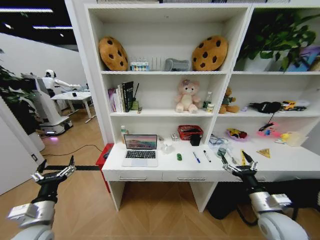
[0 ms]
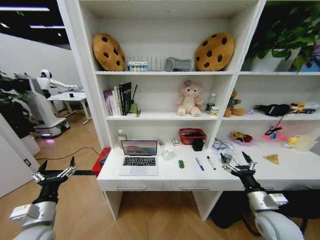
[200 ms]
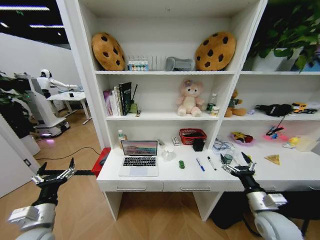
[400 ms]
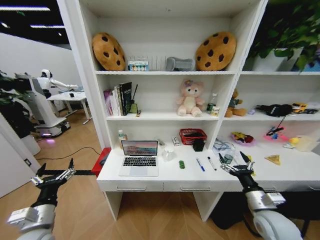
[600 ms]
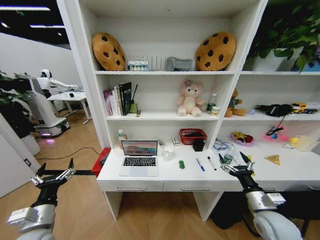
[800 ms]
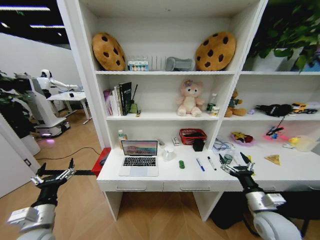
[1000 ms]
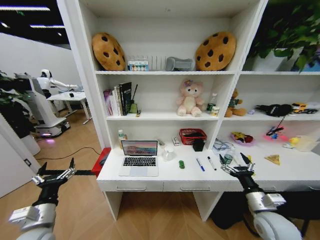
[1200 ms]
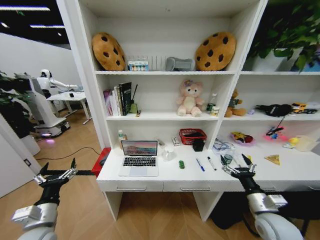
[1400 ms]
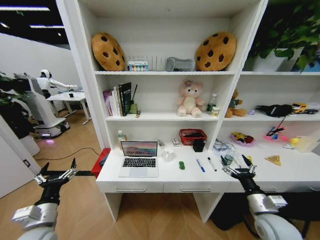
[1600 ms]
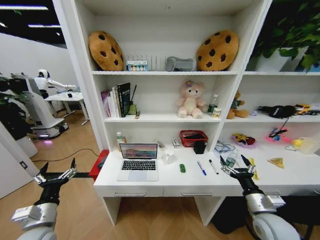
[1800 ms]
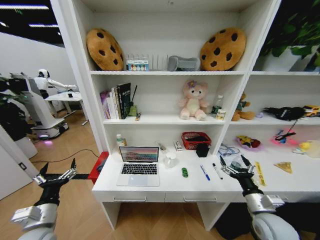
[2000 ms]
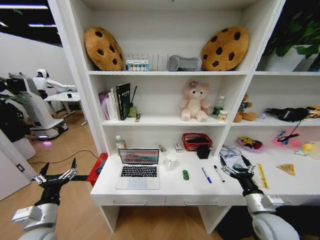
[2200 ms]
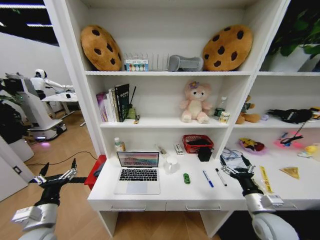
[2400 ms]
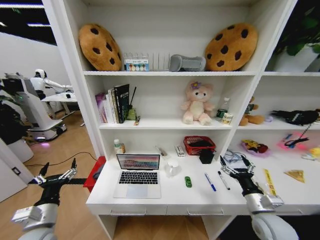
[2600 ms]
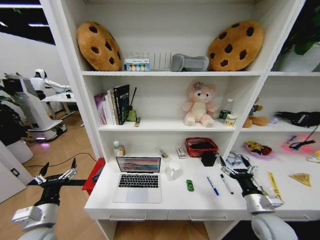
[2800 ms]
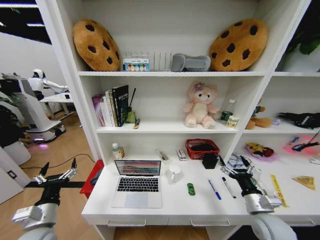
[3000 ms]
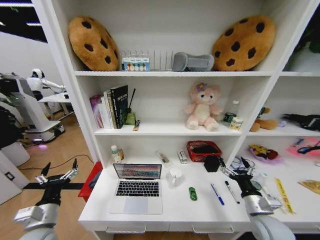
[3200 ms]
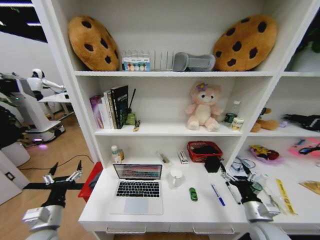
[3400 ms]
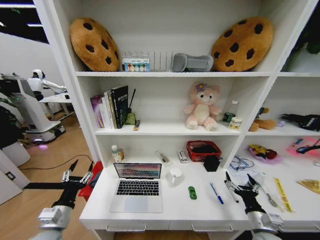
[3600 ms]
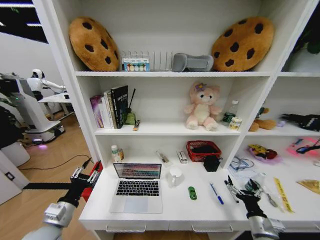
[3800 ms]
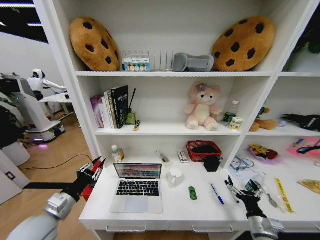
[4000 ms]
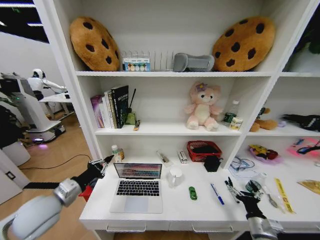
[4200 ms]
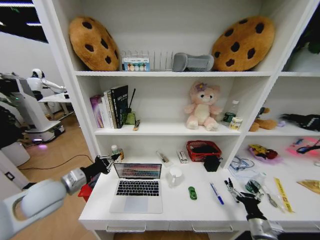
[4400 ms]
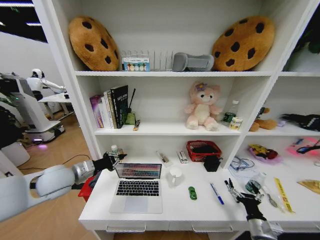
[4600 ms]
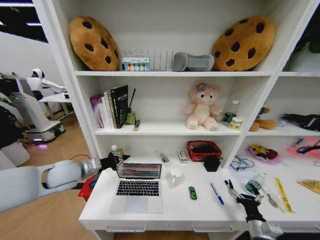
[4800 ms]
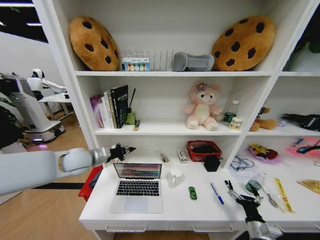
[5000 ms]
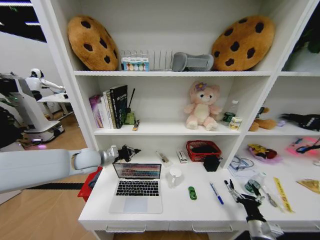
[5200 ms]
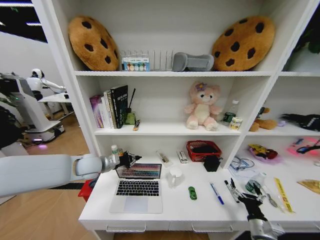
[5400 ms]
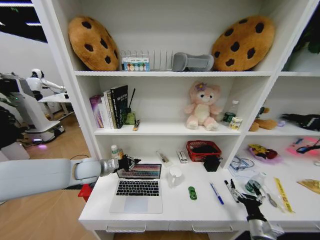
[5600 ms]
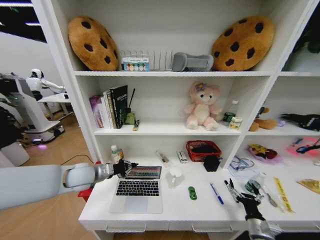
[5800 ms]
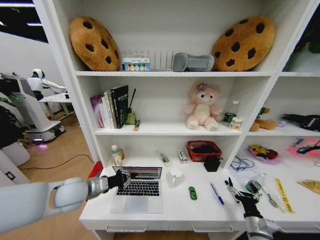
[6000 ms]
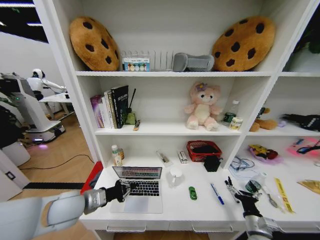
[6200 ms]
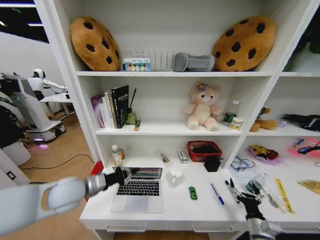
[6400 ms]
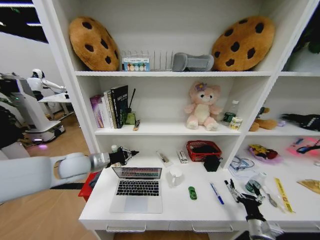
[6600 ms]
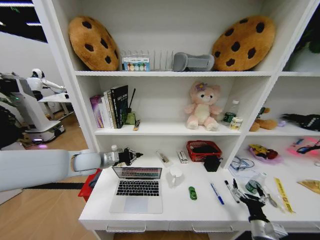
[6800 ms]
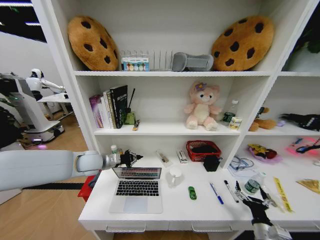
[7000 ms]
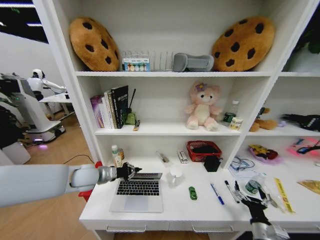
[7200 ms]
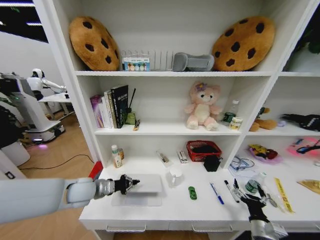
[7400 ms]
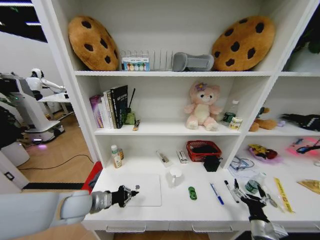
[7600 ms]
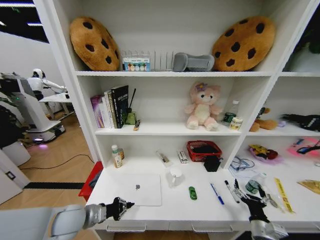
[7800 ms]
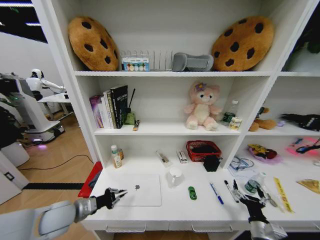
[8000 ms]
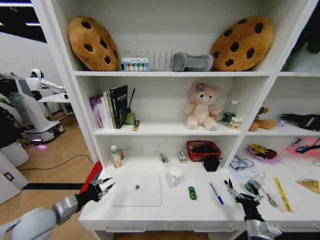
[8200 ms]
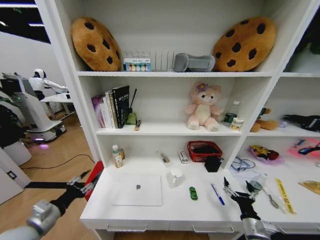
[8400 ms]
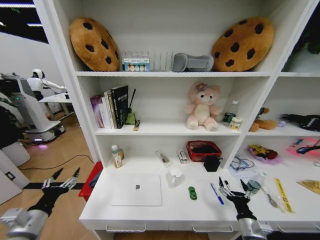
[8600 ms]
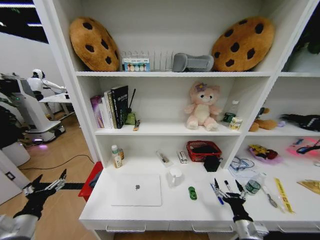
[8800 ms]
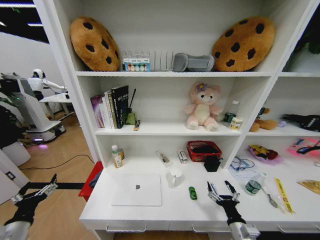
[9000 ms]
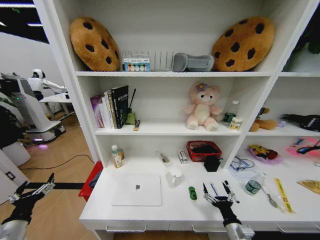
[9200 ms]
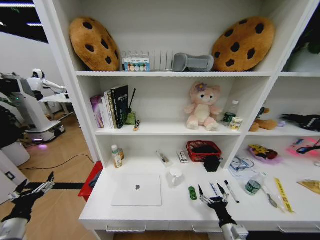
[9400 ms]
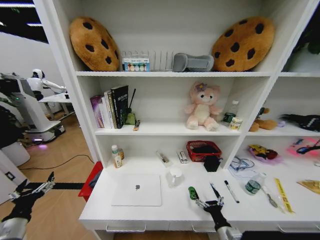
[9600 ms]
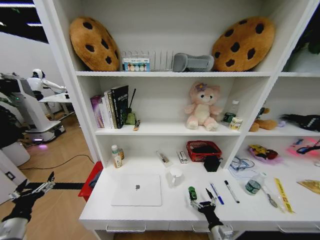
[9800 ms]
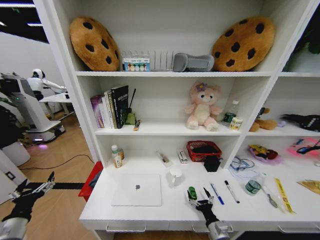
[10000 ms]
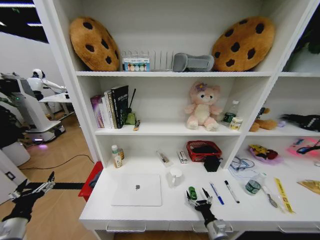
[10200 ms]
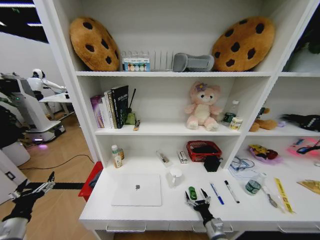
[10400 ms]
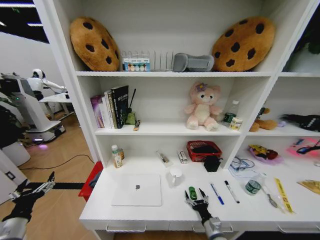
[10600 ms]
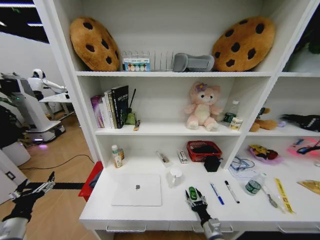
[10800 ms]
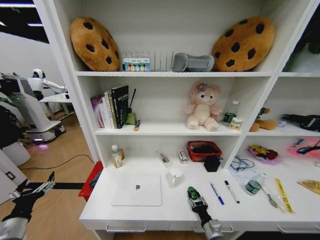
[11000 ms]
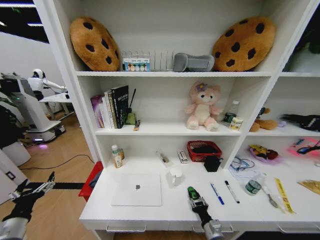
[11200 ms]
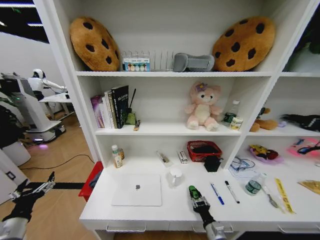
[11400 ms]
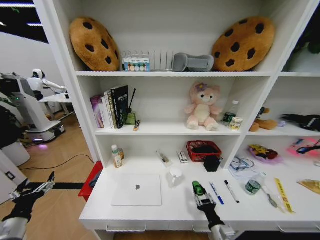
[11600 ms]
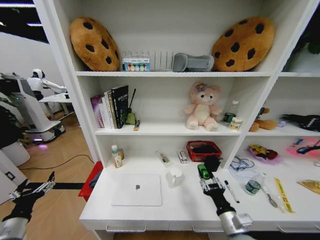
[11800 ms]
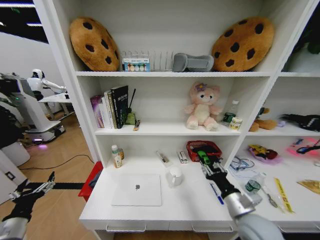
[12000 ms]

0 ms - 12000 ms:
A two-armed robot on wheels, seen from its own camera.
Task of the whole recording: Organize the objects on the table.
3000 ms - 4400 ms: The right gripper shifts roughly 10 cm downward and backward, while the left gripper goes approximately 15 cm forward and upward, and closes up.
4400 ms - 6000 ms: The left gripper goes forward and returns, about 15 cm each way.
6000 ms - 7600 ms: The left gripper moves forward and backward over some 15 cm, changing direction 2 times.
7600 ms - 9000 ms: The left gripper travels to the left and backward by roughly 20 cm, and opens up. The right gripper is displaced to the left by about 5 cm.
9000 ms - 10400 ms: The right gripper travels downward by about 10 cm.
10400 ms - 12000 ms: The right gripper moves upward, approximately 20 cm, and closes.

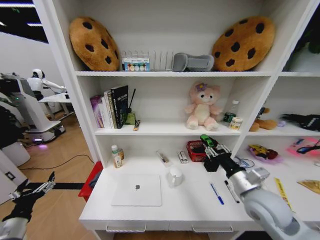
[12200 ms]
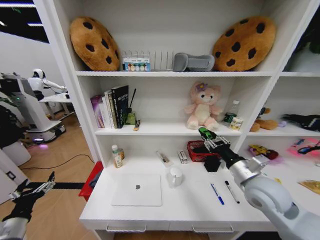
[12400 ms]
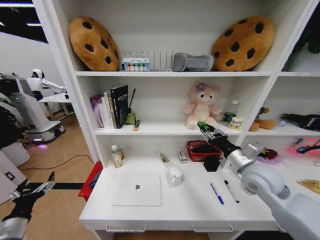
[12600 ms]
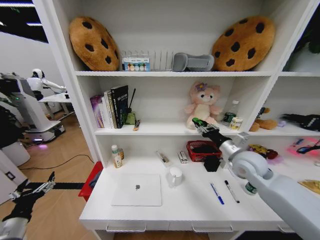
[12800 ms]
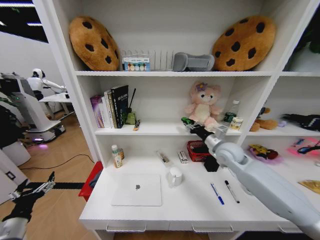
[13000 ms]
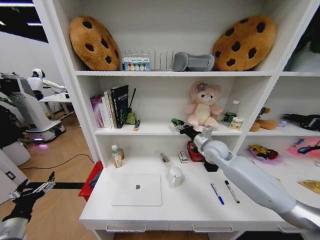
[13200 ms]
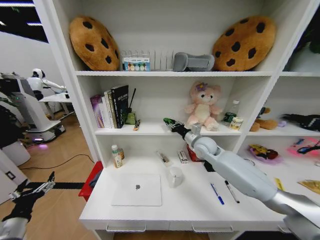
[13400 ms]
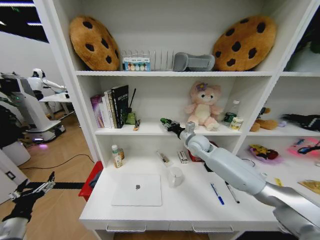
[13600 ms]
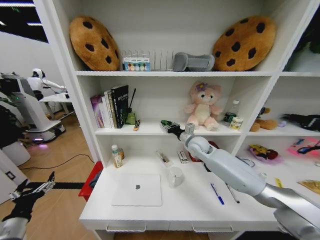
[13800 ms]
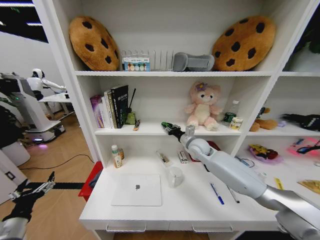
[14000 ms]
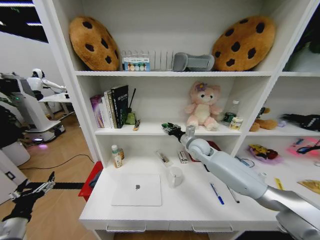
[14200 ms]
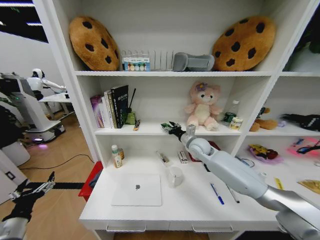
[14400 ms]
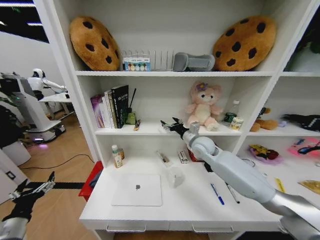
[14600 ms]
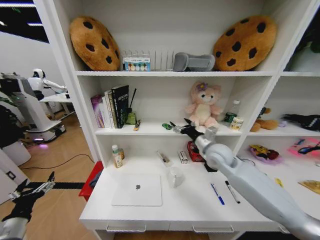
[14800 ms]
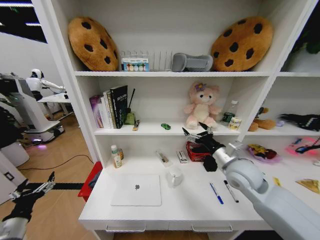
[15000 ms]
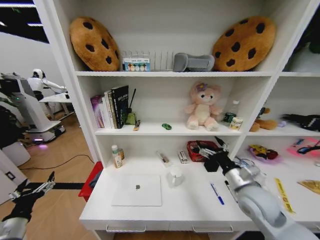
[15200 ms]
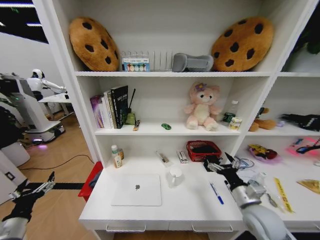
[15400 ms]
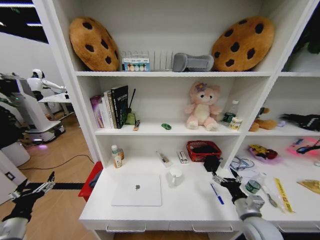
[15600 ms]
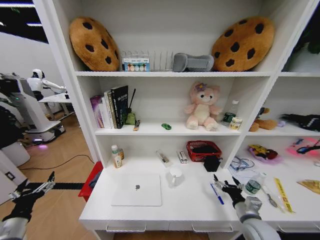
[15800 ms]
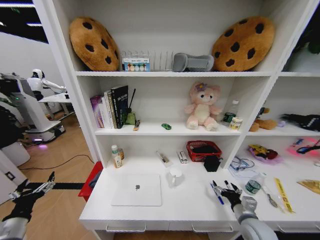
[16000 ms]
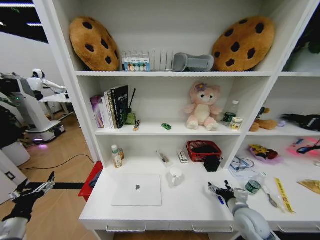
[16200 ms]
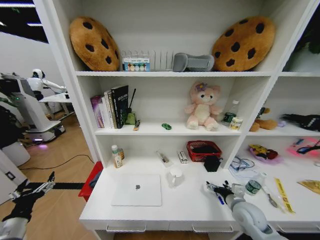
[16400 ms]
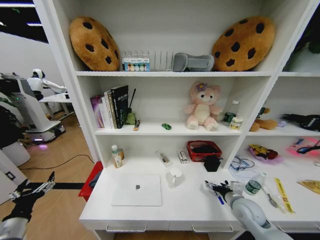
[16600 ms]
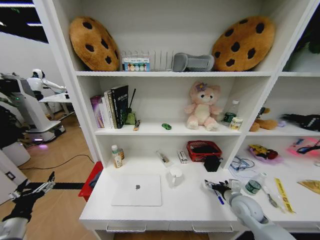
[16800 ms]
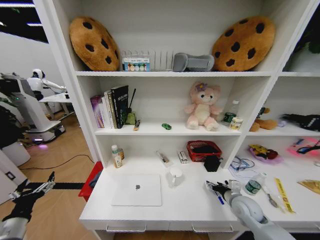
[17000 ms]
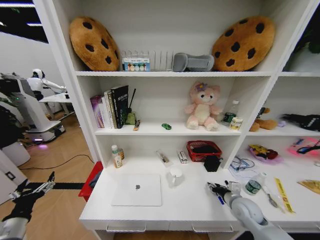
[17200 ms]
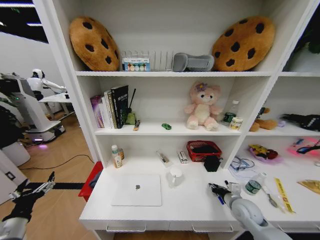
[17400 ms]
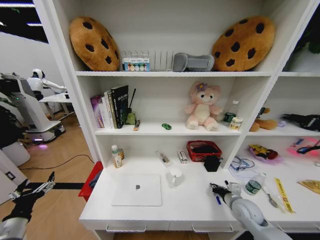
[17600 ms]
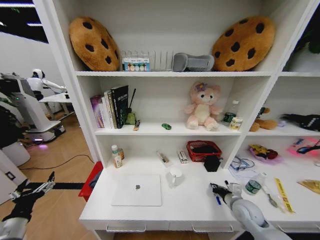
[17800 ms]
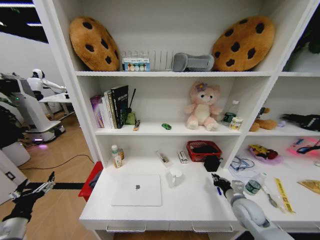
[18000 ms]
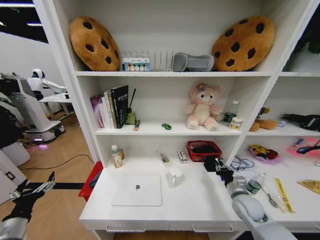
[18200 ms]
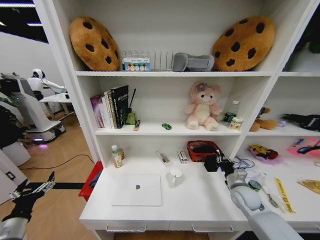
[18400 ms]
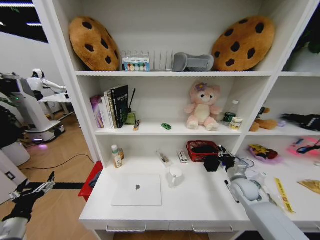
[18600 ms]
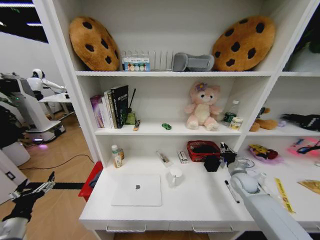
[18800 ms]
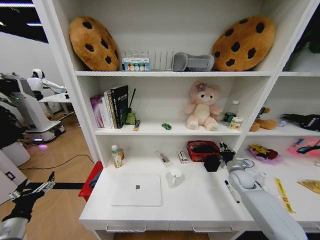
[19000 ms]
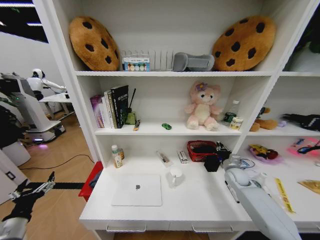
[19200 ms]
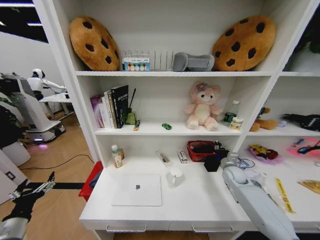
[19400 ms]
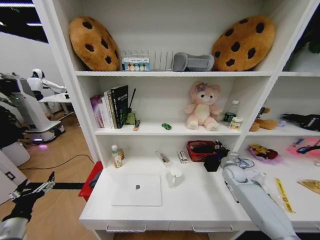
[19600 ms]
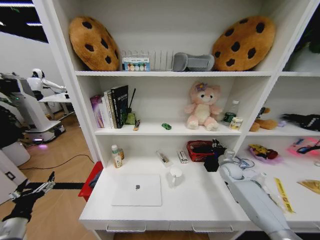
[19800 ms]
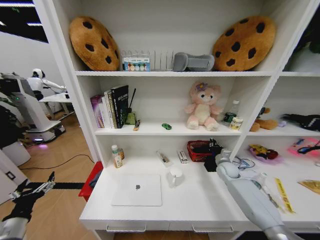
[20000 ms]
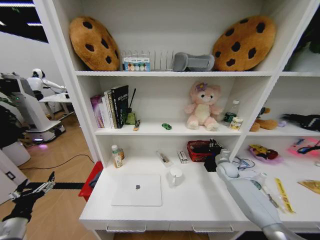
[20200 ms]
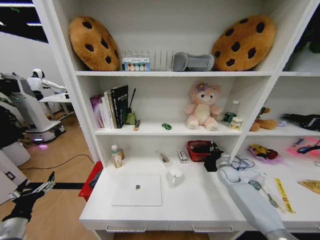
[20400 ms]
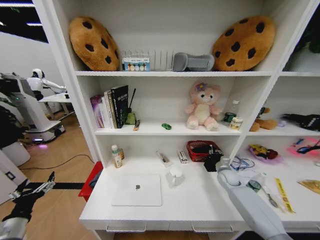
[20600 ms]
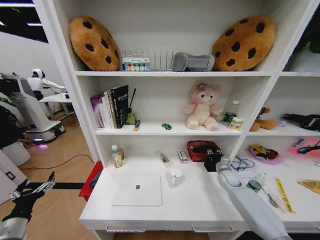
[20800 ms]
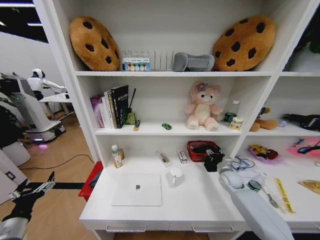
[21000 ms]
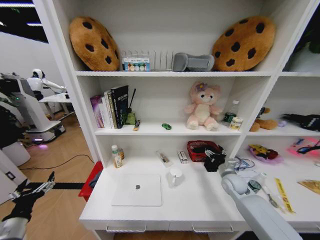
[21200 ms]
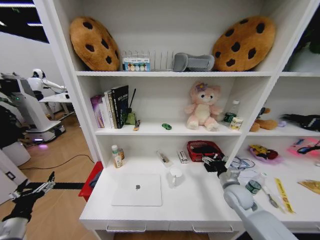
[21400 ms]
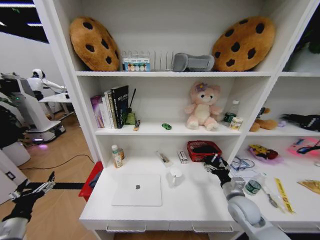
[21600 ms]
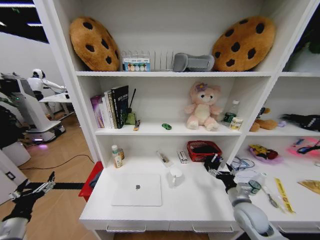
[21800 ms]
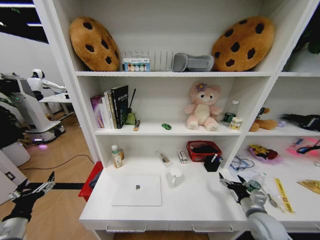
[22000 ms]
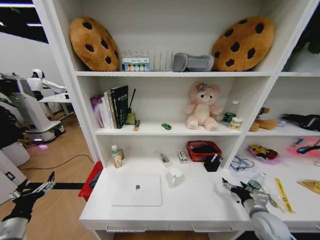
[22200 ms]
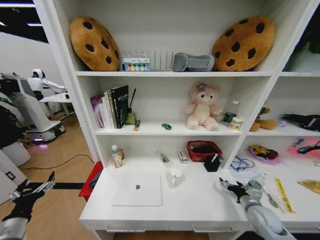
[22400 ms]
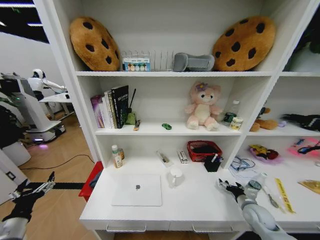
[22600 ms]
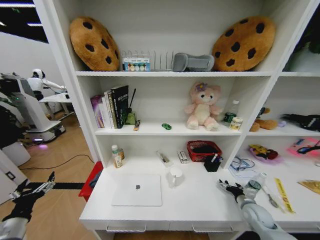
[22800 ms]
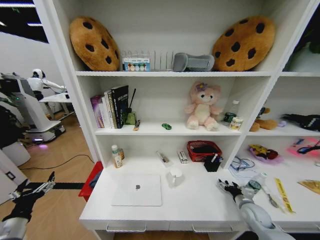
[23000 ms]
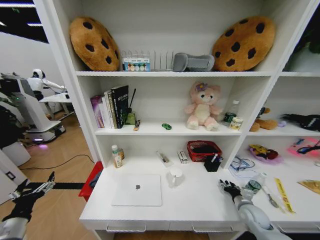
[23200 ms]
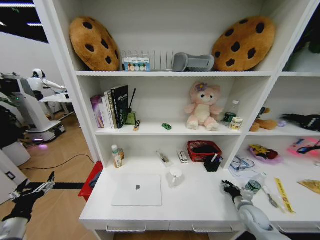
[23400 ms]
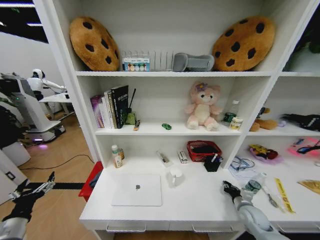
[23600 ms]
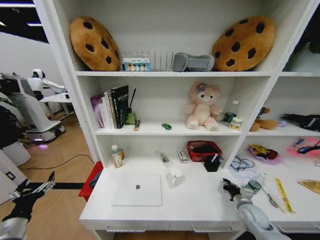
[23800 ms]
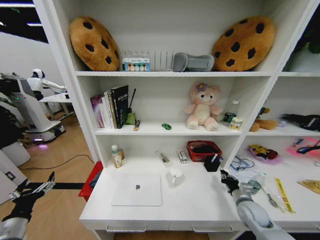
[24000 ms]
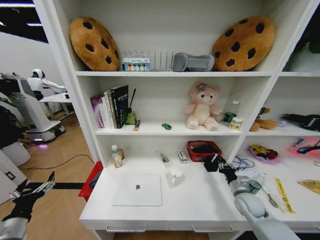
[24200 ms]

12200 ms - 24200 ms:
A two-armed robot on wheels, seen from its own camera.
Task of the whole recording: Organize the objects on the table.
12200 ms - 13800 ms: The right gripper goes approximately 30 cm forward and to the left.
13800 ms - 15200 ms: The right gripper heads backward and to the right, covering approximately 25 cm, and opens its fingers.
15200 ms - 16600 ms: The right gripper moves downward, approximately 10 cm.
16600 ms - 18200 ms: The right gripper closes up.
18200 ms - 19800 ms: The right gripper goes roughly 15 cm forward.
19800 ms - 21200 ms: The right gripper moves backward, roughly 5 cm, and opens its fingers.
21200 ms - 22600 ms: The right gripper is displaced backward, downward and to the right by approximately 15 cm.
22600 ms - 24200 ms: The right gripper closes up.
